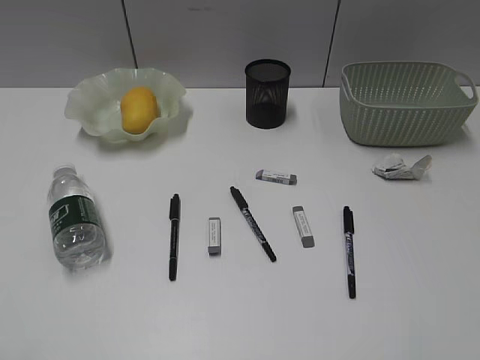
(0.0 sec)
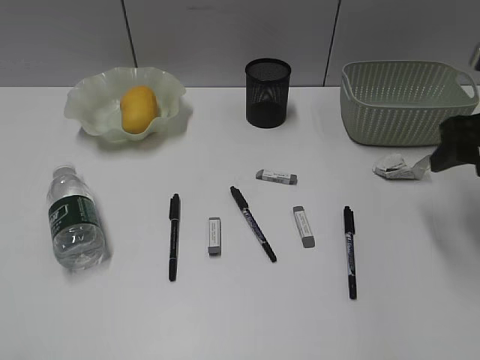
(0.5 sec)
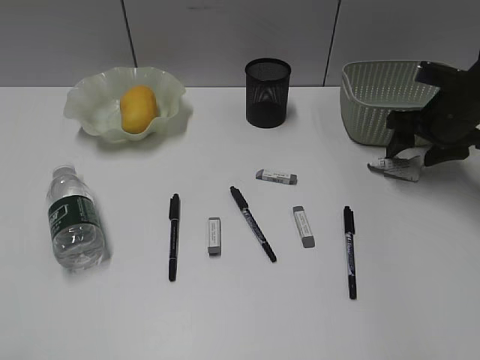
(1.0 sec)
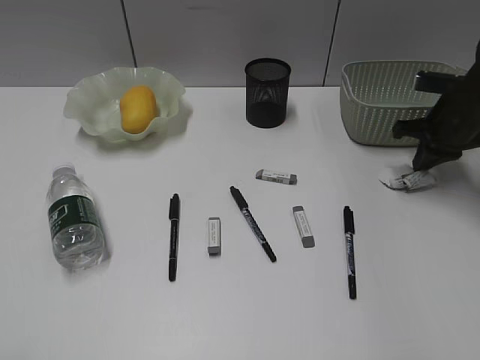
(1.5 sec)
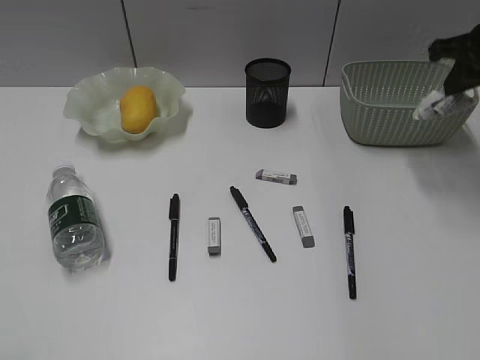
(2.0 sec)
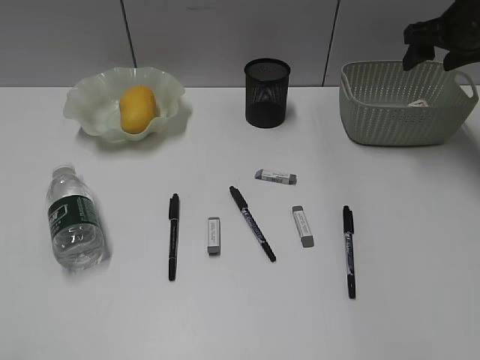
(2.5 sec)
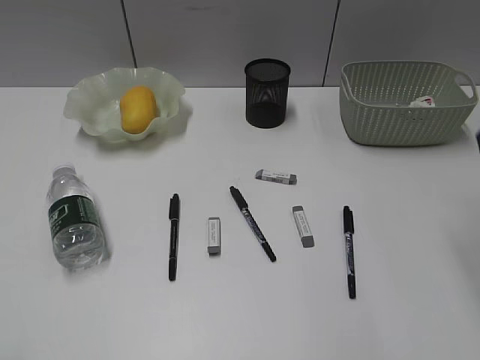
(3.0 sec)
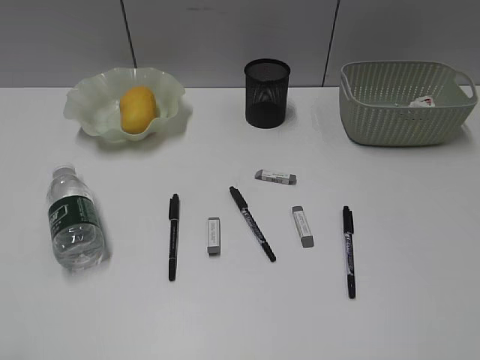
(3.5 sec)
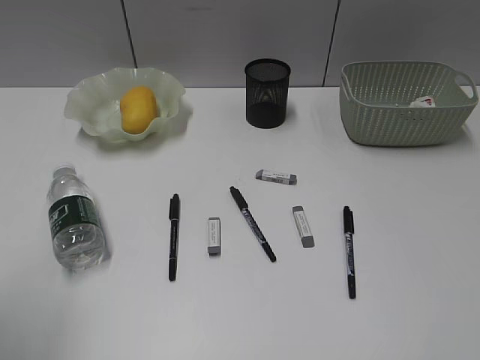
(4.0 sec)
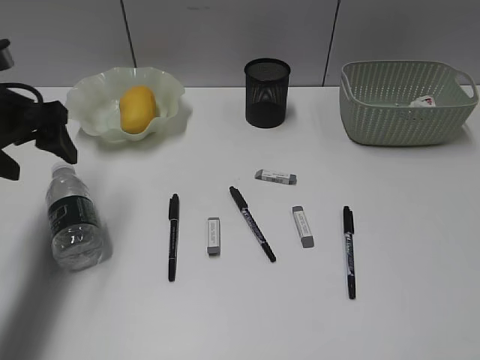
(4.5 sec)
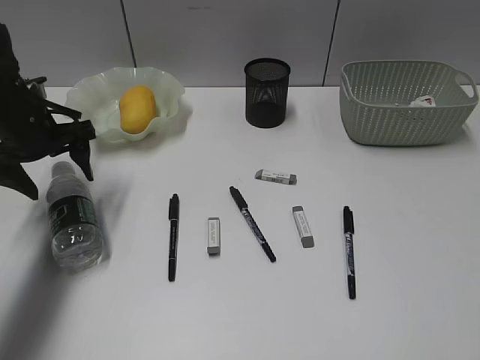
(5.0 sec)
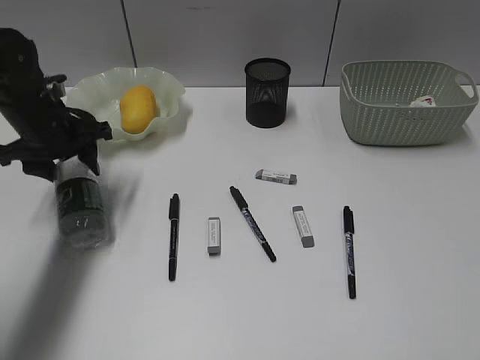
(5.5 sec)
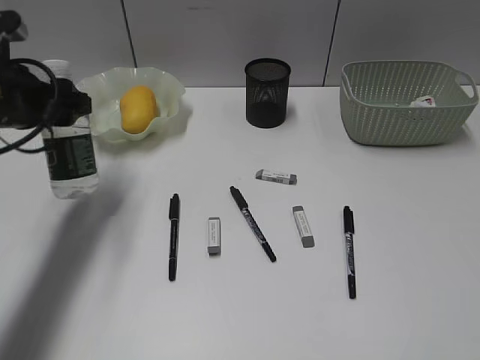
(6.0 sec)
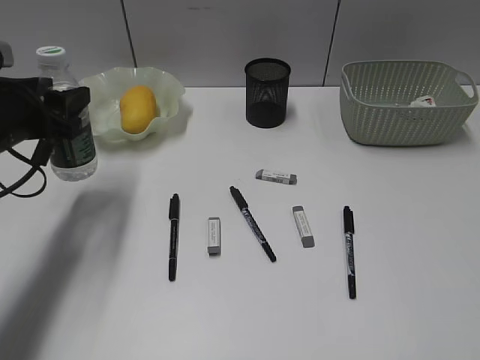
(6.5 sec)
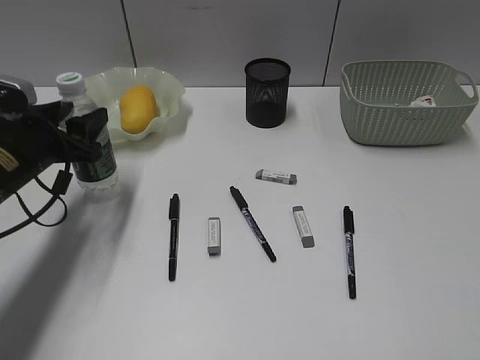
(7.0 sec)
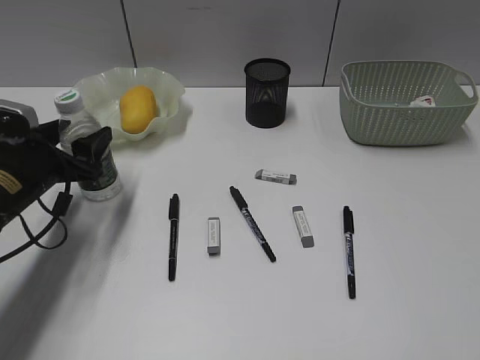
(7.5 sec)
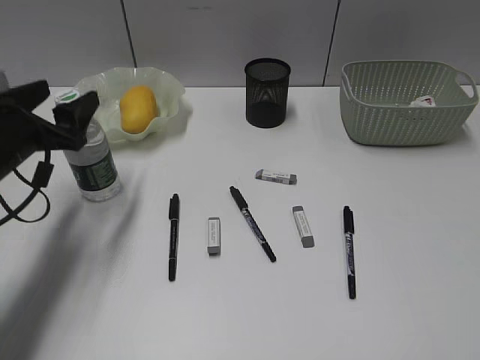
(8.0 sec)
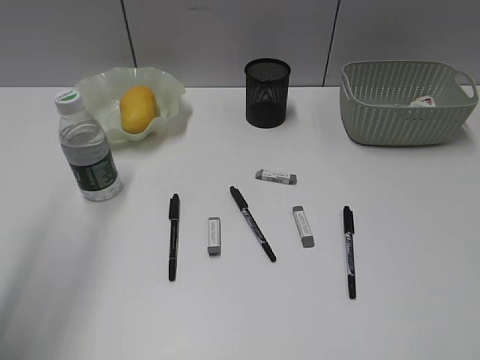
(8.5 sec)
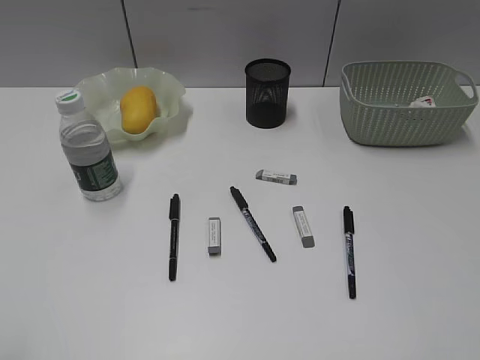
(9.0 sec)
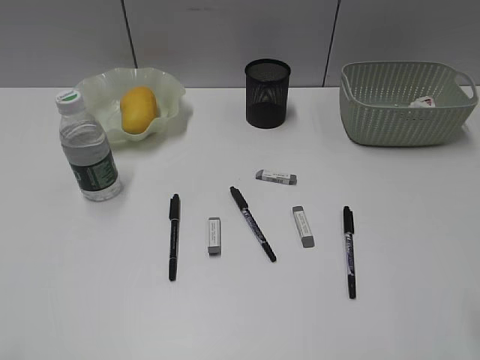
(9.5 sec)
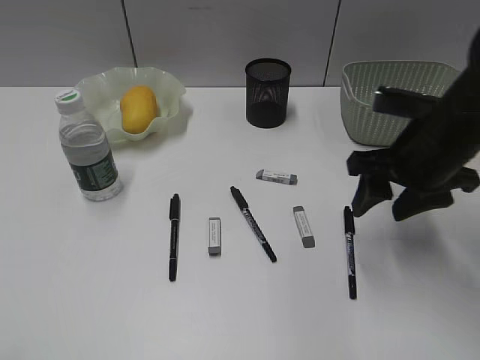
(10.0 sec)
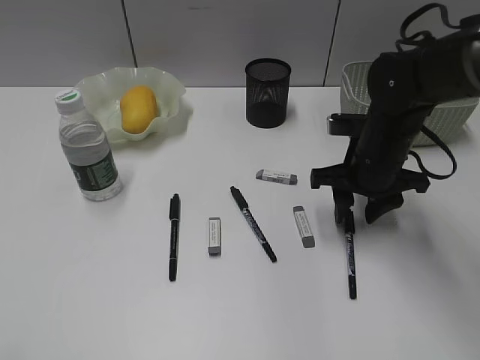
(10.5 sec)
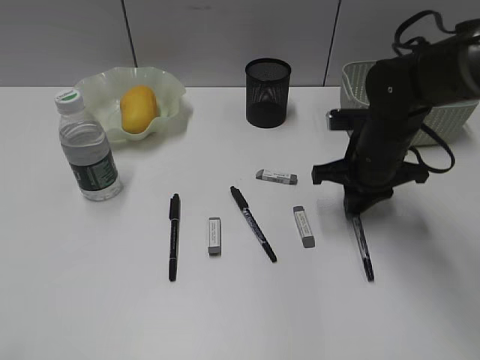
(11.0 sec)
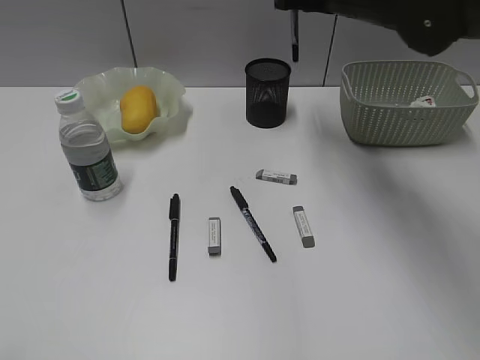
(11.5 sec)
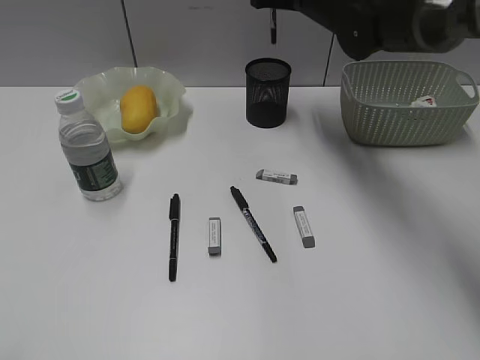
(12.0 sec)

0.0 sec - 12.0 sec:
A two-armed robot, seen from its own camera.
Step, 0.0 sec - 1.5 sec: Grasp the waste paper with right gripper.
Step, 2.0 sec - 2.5 sec: Place the waste paper in the basket with right gripper.
Step, 3.0 sec - 5.5 sec: Grasp the bottle with left gripper.
Step, 6.0 sec - 8.0 sec: Stand the bottle with left gripper.
Step, 8.5 sec - 10.5 sec: Grasp the black pen with right gripper.
0.0 sec - 2.0 sec: The right gripper is displaced forward by approximately 35 cm, and closes its fingers.
2.0 sec - 4.0 sec: The left gripper travels forward by approximately 10 cm, while the right gripper travels backward by approximately 40 cm, and opens up.
4.0 sec - 6.0 sec: The left gripper is displaced forward by about 25 cm.
6.0 sec - 8.0 sec: The left gripper goes roughly 5 cm downward.
8.0 sec - 10.0 sec: The left gripper travels backward and upward by about 35 cm. Meanwhile the right gripper goes roughly 30 cm forward.
10.0 sec - 12.0 sec: The right gripper goes some 25 cm forward and to the left, and closes.

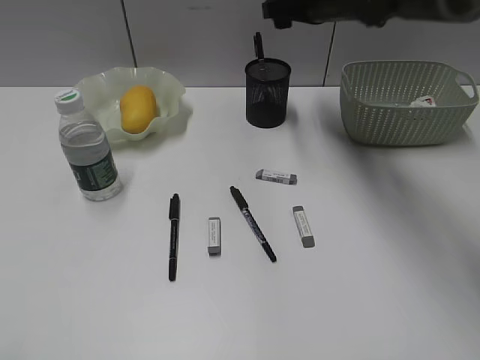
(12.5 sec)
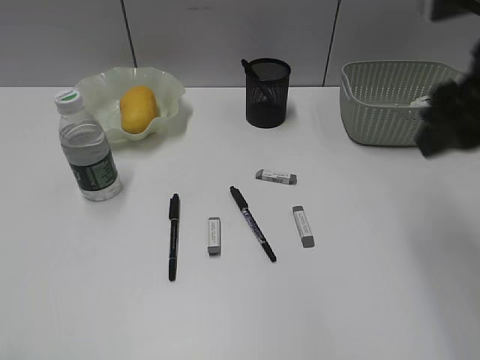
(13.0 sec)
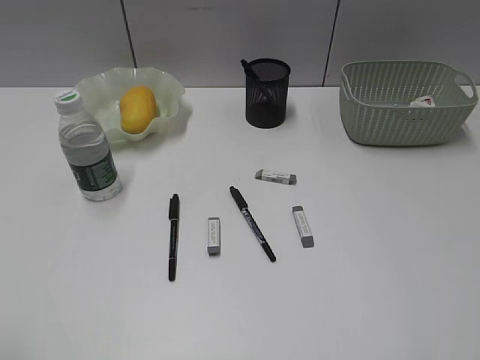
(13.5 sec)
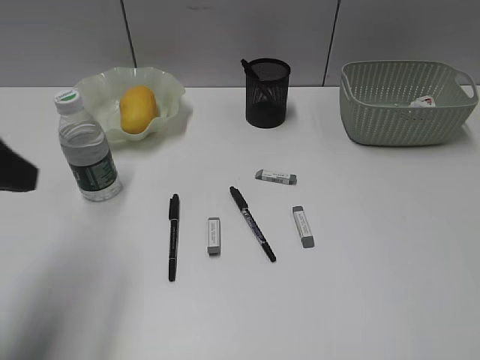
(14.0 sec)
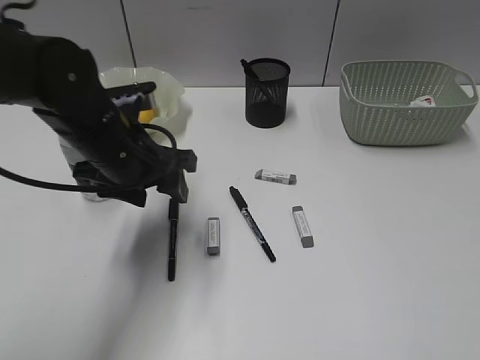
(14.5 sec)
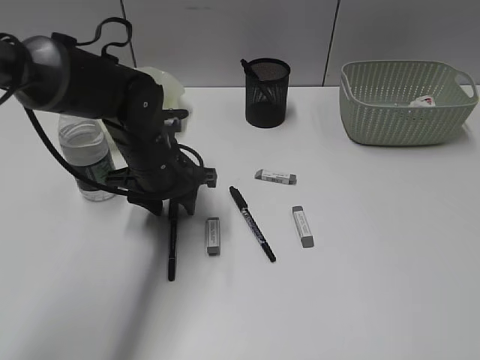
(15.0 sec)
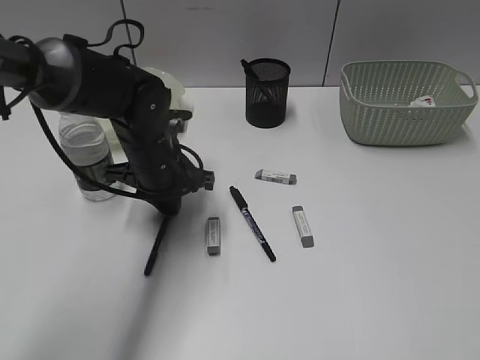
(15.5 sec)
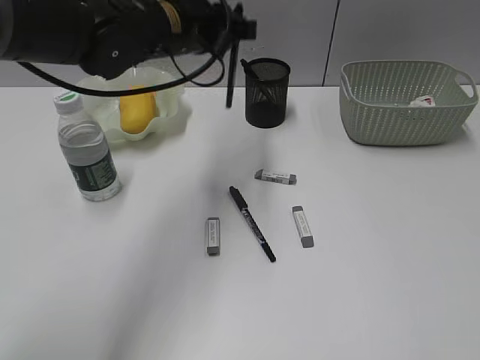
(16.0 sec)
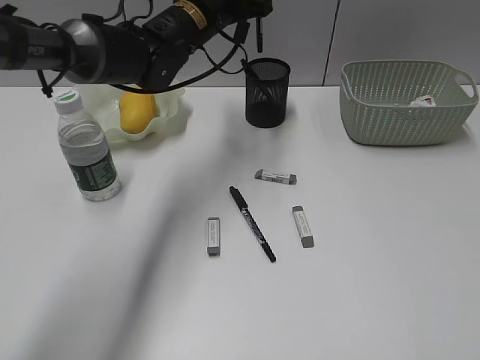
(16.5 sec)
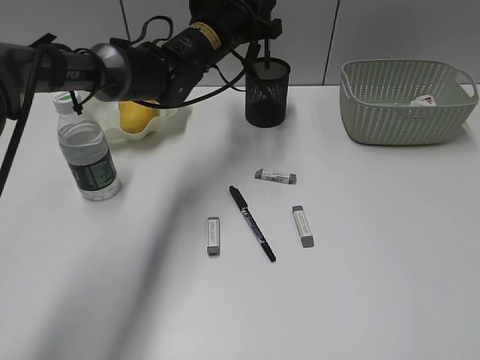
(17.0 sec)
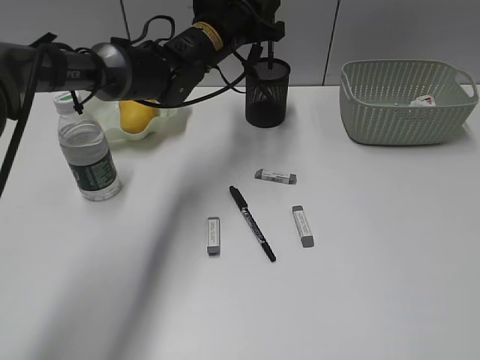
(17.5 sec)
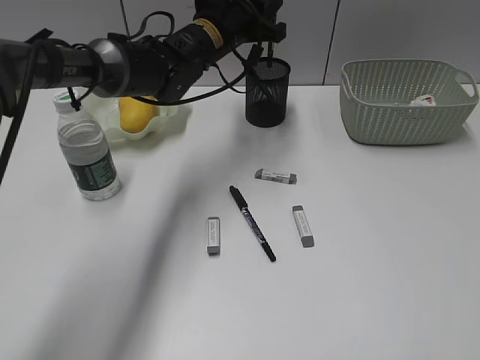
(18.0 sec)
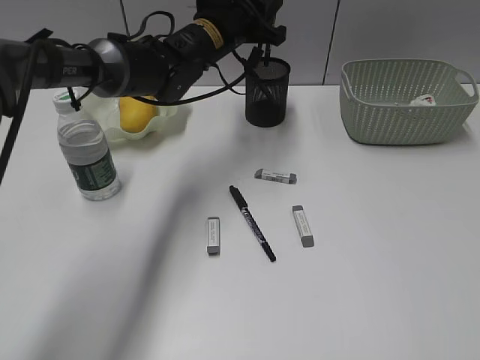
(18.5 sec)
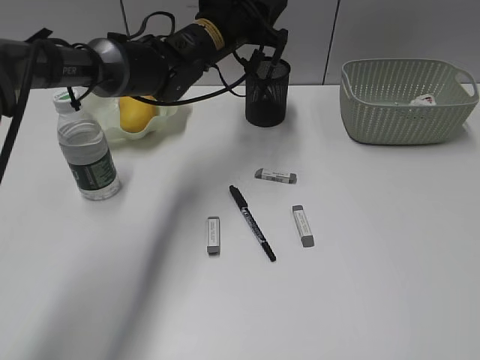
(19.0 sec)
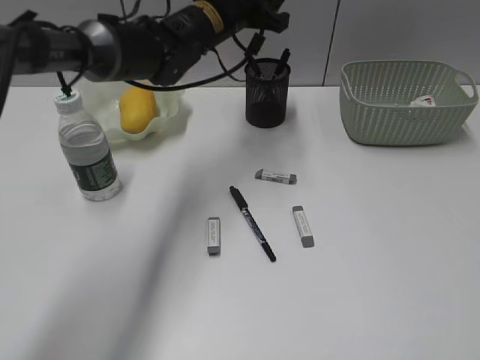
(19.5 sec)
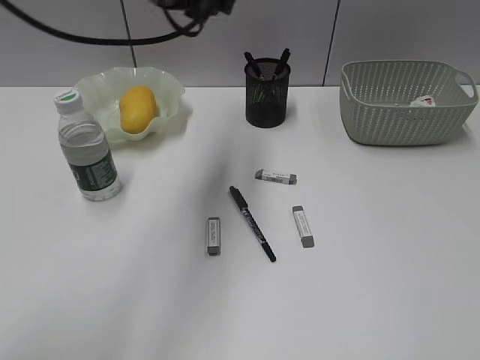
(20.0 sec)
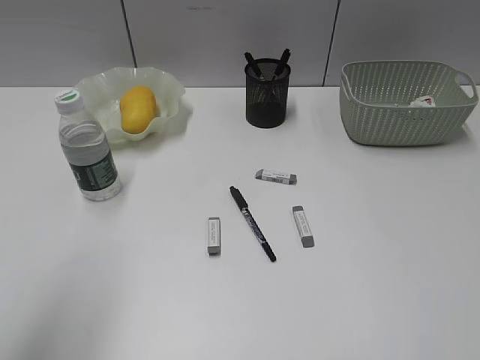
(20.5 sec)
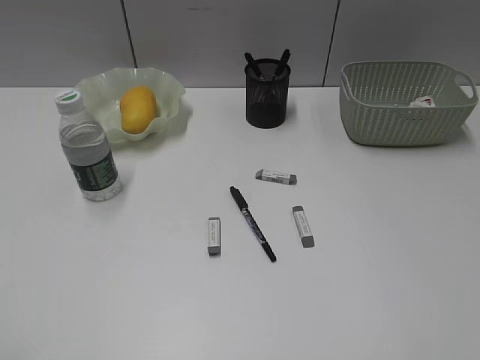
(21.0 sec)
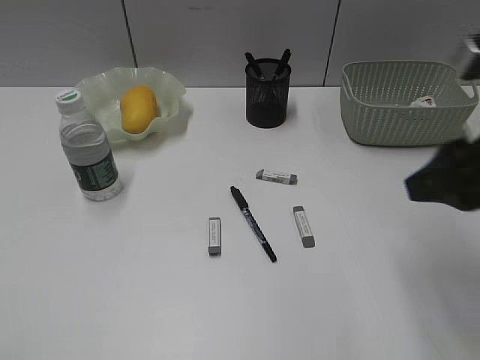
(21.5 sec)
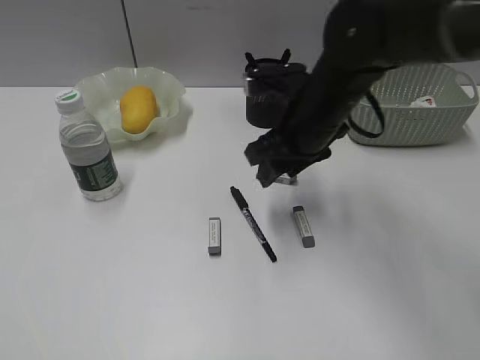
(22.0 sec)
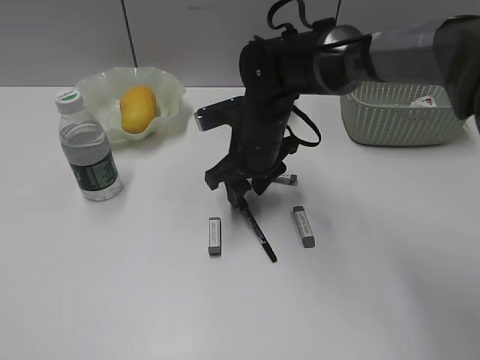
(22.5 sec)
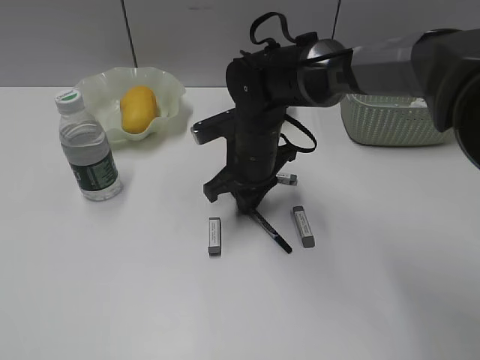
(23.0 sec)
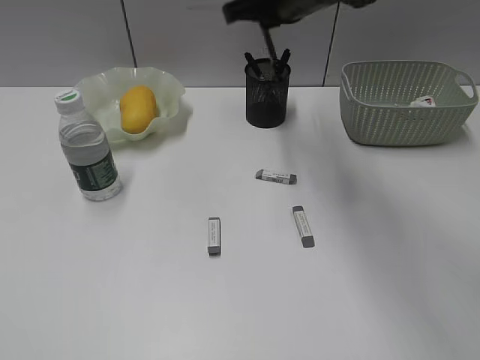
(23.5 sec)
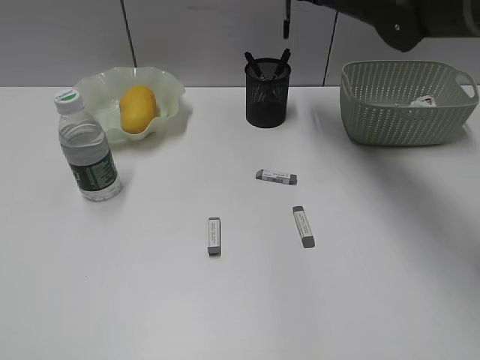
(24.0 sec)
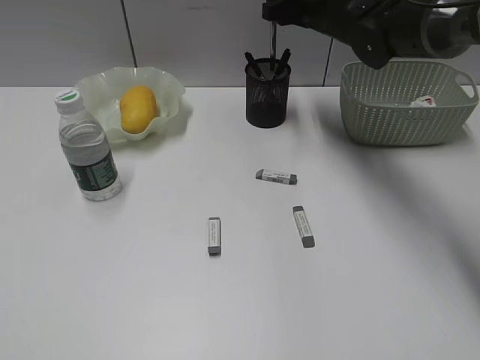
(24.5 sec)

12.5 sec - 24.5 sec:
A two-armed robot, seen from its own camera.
Step, 13.0 sec - 15.5 sec: Grasp the black pen with left gripper.
Step, 16.0 sec - 19.0 sec: Place the black pen in pen holder with left gripper.
Step, 19.5 sec - 23.0 sec: Grasp the black pen with right gripper.
12.5 sec - 14.5 sec: The left gripper moves forward and to the right, roughly 35 cm. The right gripper moves backward and to the right, roughly 50 cm.
14.5 sec - 16.5 sec: The left gripper travels forward and to the right by about 20 cm, and closes up.
16.5 sec - 18.5 sec: There are only small adjustments of the grippers.
18.5 sec - 20.5 sec: The left gripper is displaced backward and to the left by approximately 40 cm, and opens.
20.5 sec - 22.5 sec: The right gripper is displaced forward, to the left and downward by some 50 cm; the left gripper is displaced backward and to the left by roughly 15 cm.
22.5 sec - 24.5 sec: The right gripper moves forward, upward and to the right, some 20 cm, and closes and opens again.

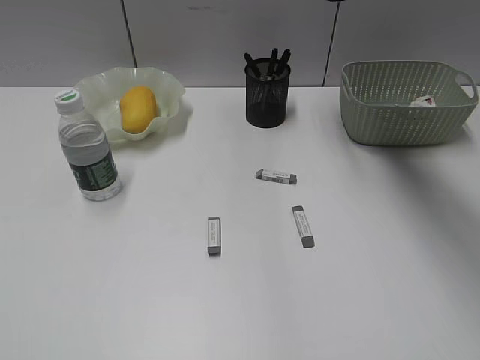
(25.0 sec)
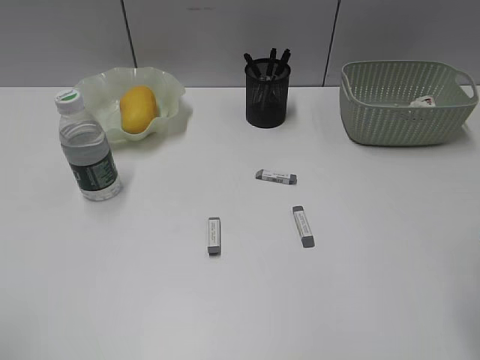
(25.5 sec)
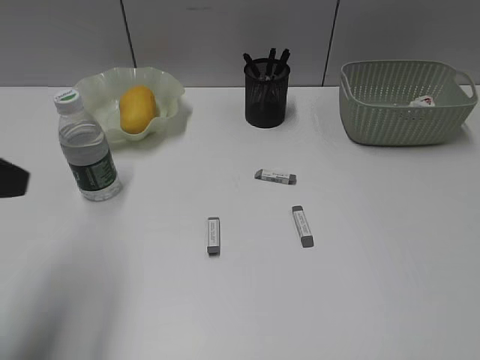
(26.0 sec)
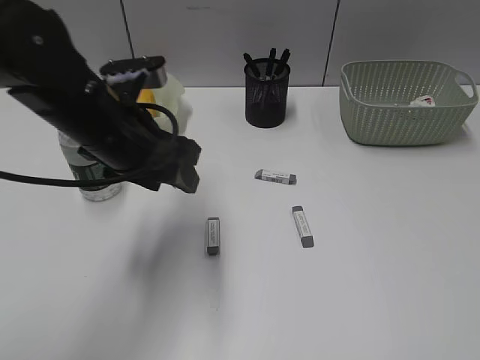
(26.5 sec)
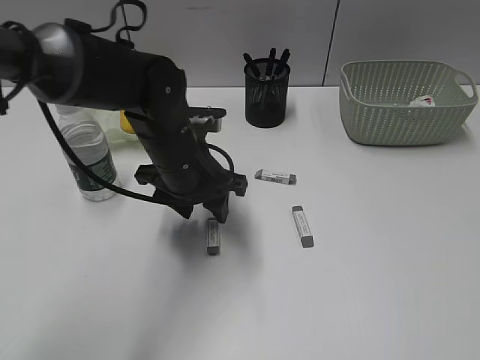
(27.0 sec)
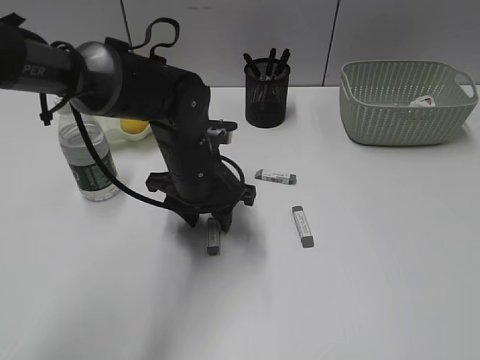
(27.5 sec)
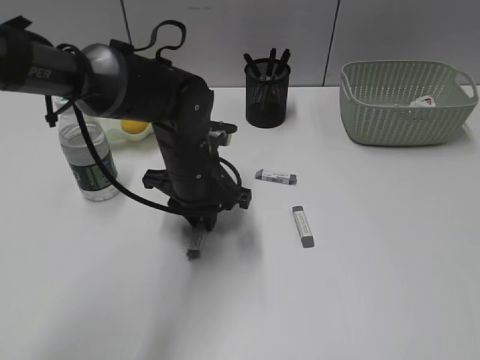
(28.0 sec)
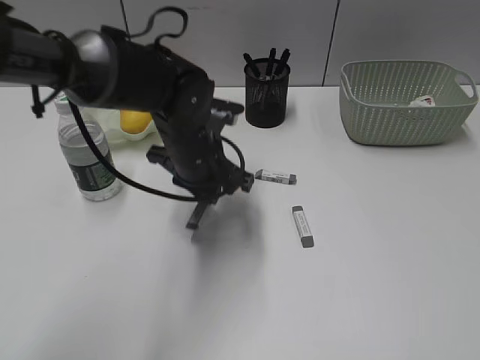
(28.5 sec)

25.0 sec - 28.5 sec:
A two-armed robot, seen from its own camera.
Step, 25.0 sec - 28.0 sec: Grasp the eraser with left gripper.
25.0 sec - 27.0 sec: The right gripper heads backward, covering about 50 cm; the left gripper moves forward, to the right and downward, roughly 50 cm.
27.0 sec - 28.5 sec: The left gripper closes up.
